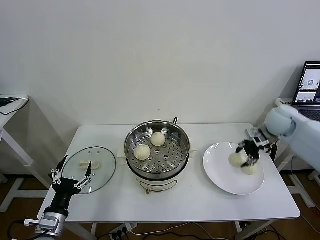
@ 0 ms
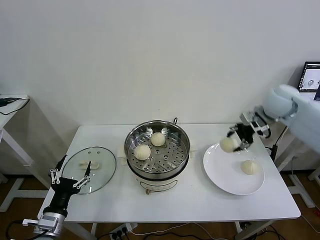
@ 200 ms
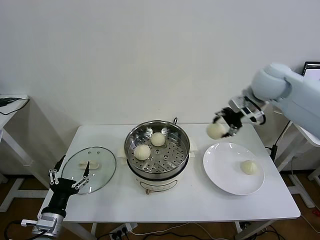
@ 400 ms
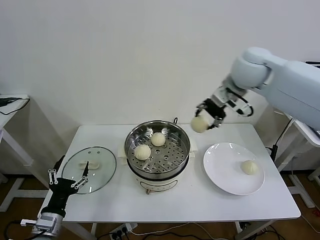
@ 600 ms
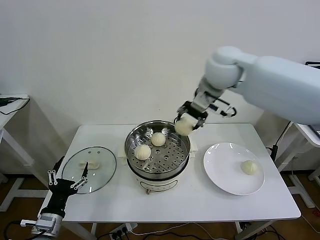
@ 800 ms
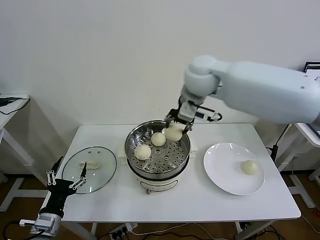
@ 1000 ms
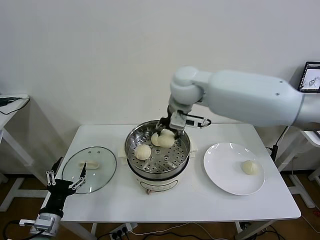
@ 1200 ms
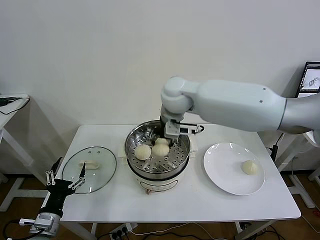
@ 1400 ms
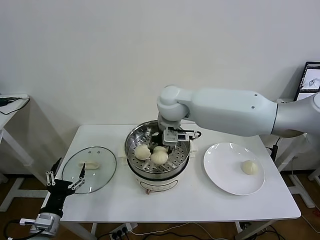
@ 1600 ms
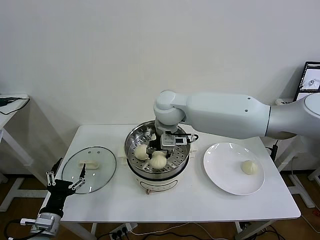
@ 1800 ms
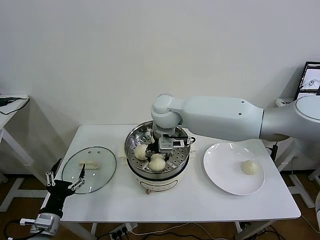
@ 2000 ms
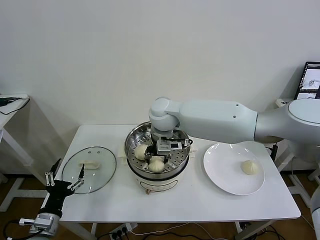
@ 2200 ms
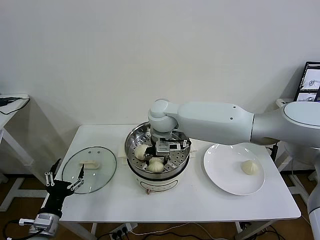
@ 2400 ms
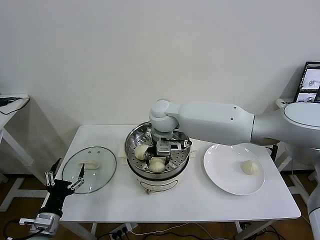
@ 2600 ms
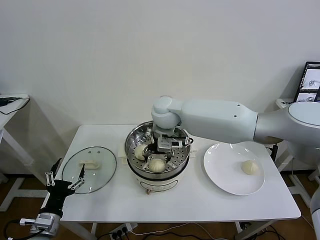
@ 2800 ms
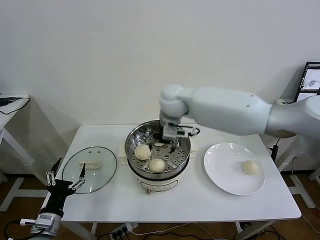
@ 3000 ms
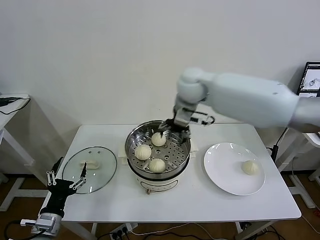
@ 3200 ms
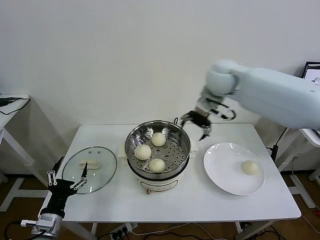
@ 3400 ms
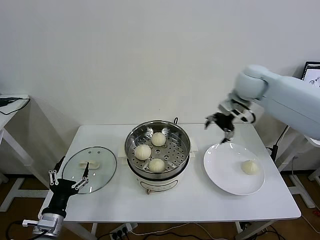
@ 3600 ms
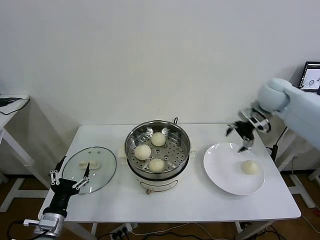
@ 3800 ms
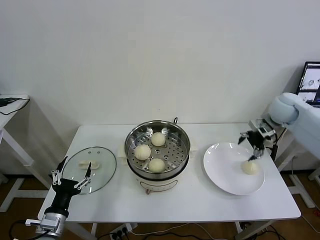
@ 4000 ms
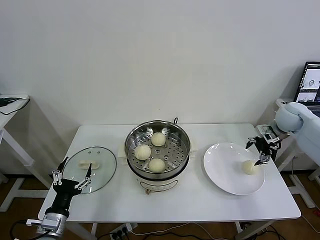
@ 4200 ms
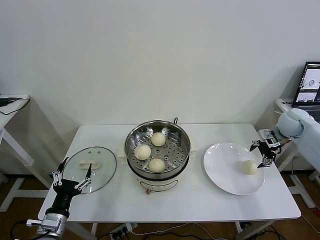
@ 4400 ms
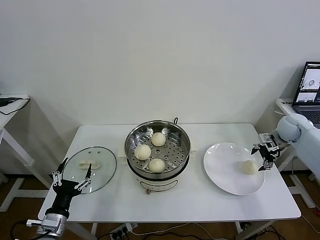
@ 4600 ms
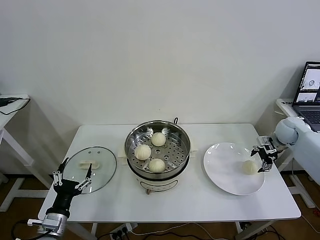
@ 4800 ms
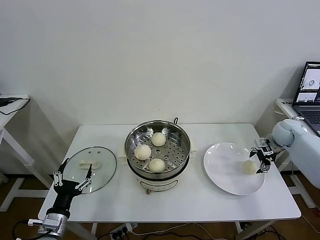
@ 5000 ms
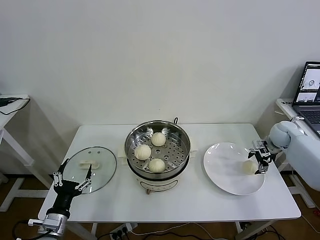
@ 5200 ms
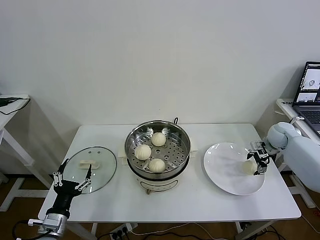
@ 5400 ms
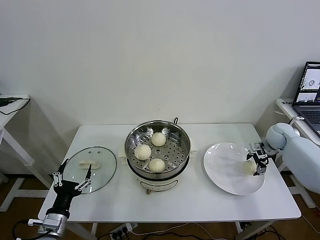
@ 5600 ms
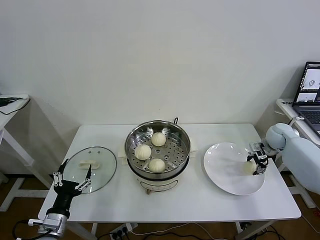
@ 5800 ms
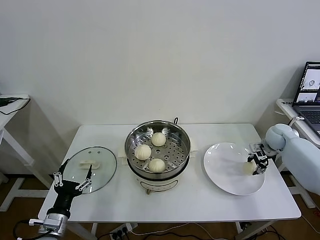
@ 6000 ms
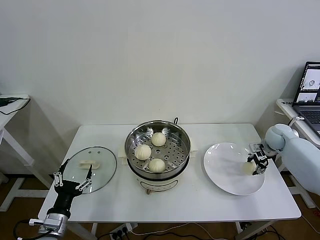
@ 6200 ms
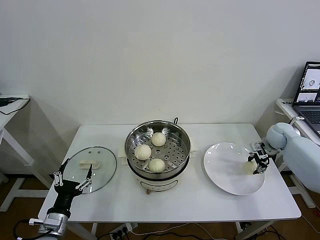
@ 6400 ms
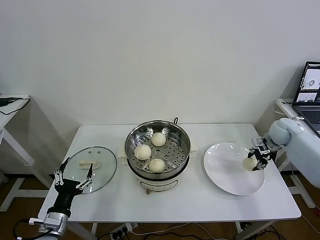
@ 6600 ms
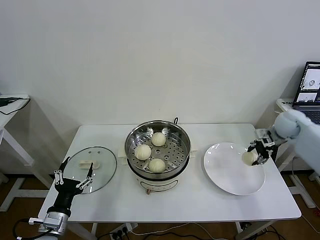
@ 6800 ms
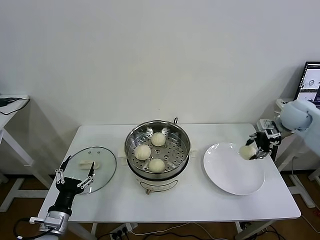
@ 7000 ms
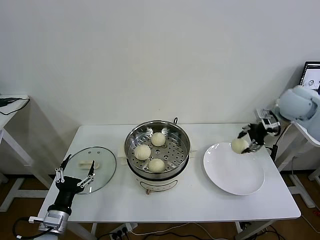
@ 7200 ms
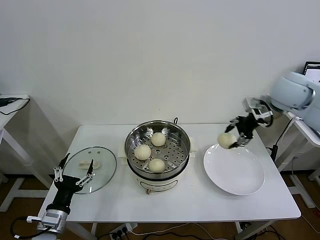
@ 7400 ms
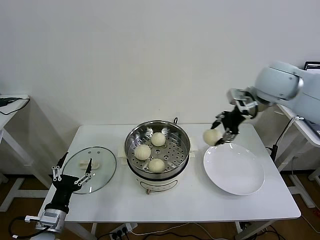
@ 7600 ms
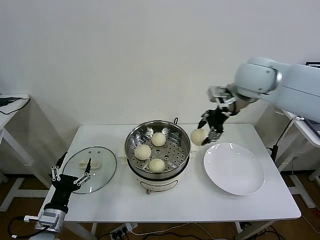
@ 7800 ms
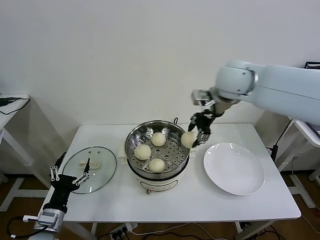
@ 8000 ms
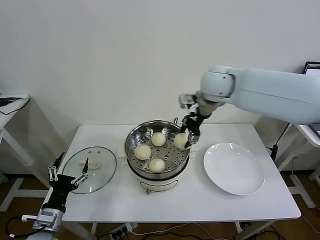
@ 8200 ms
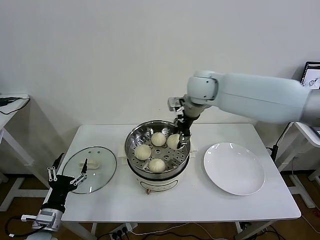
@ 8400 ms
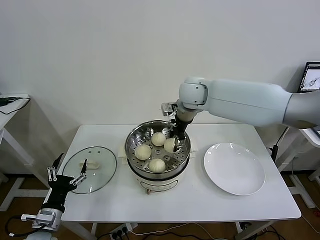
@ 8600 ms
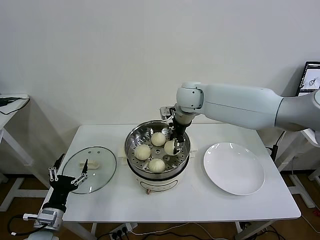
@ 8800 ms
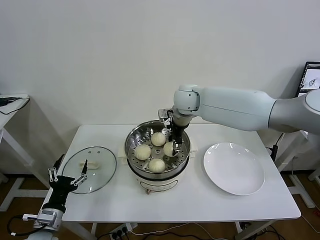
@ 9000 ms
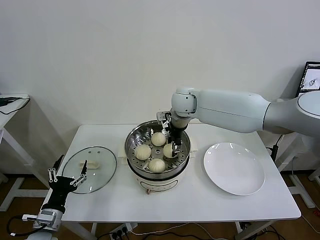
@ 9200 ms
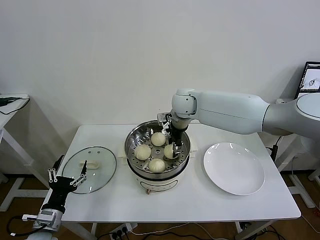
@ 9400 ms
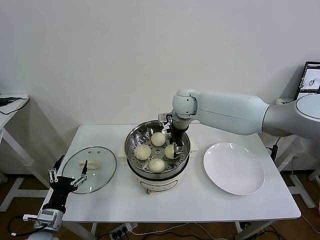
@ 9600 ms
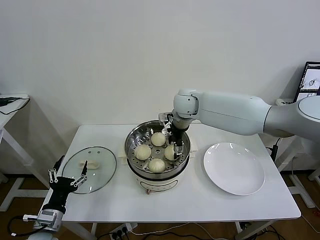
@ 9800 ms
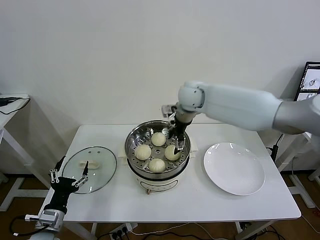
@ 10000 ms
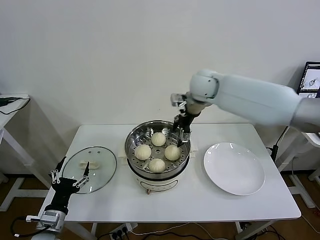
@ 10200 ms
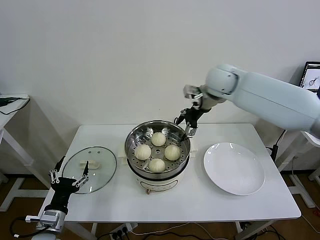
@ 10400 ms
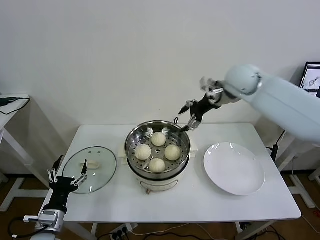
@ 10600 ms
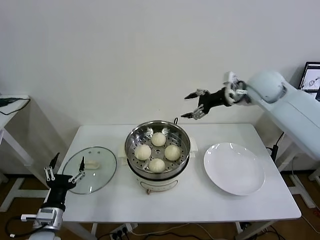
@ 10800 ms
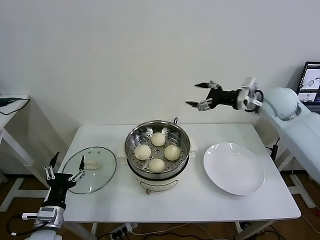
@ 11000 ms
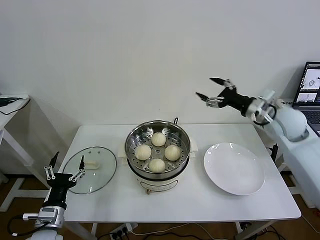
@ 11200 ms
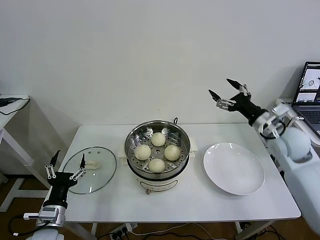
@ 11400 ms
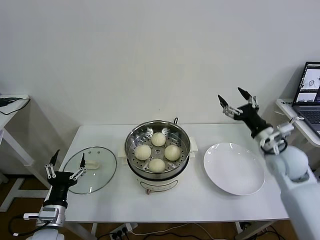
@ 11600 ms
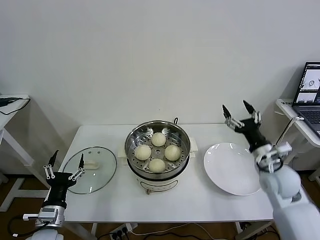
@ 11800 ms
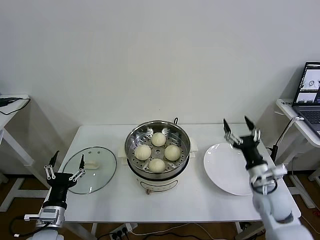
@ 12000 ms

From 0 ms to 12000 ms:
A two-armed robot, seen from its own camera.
Task of the whole recording: take steamed baozi put them in steamer then cover it.
Step, from 0 ms to 2600 ms: Place the baozi on the steamer with right gripper.
Step, from 3000 ms to 5800 ms: Grasp the baozi in the plate with right gripper.
Step, from 6000 ms to 9800 ms: Place the baozi on the steamer with right gripper.
From 0 ms to 1600 ms: The right gripper travels to the left by roughly 35 cm.
From 1600 ms to 3000 ms: The right gripper opens up.
From 3000 ms to 4400 ms: The right gripper moves to the right, approximately 40 cm.
From 4400 ms to 6000 ms: The right gripper travels downward by roughly 10 cm, and closes up.
From 6000 ms to 7600 ms: The right gripper is displaced upward and to the left by about 35 cm.
From 7600 ms to 9000 ms: The right gripper moves to the left and downward, roughly 25 cm.
From 9000 ms to 10400 ms: The right gripper travels to the right and upward by some 10 cm, and opens.
From 10400 ms to 12000 ms: The right gripper travels backward, downward and to the right by some 40 cm.

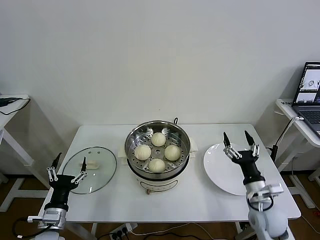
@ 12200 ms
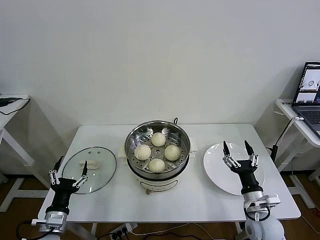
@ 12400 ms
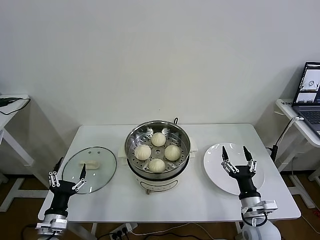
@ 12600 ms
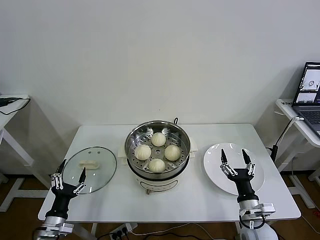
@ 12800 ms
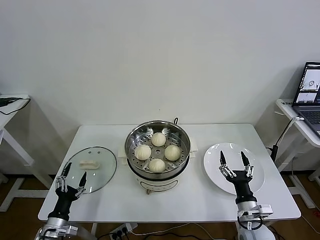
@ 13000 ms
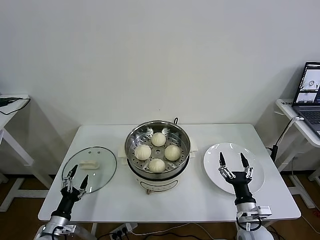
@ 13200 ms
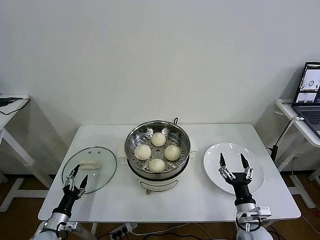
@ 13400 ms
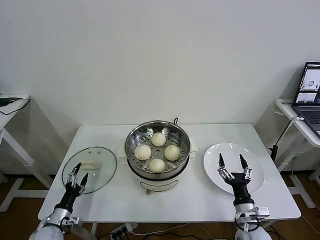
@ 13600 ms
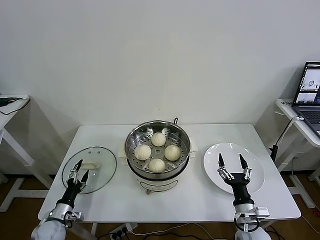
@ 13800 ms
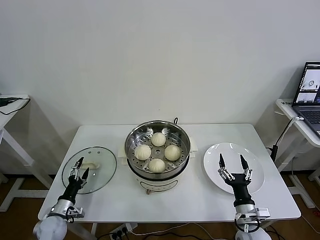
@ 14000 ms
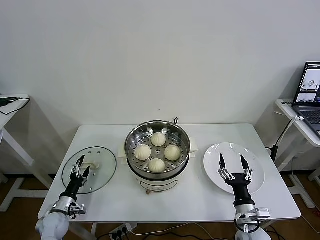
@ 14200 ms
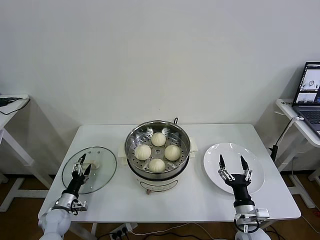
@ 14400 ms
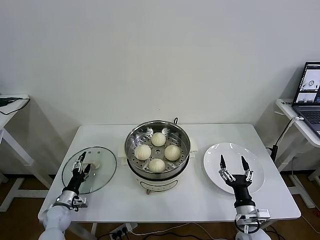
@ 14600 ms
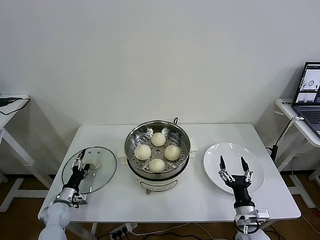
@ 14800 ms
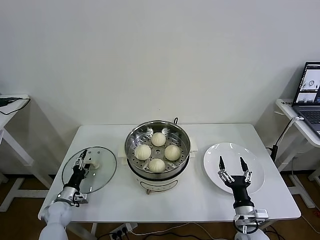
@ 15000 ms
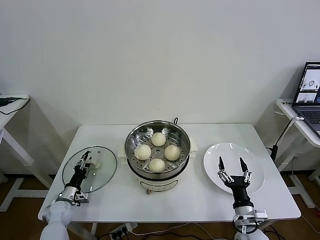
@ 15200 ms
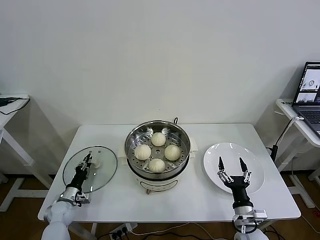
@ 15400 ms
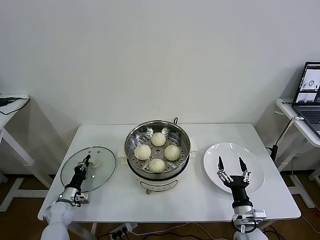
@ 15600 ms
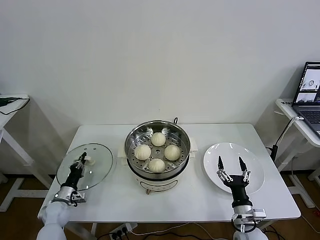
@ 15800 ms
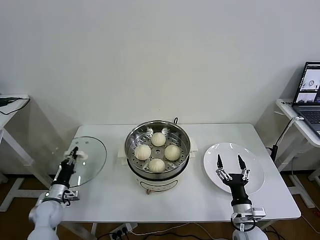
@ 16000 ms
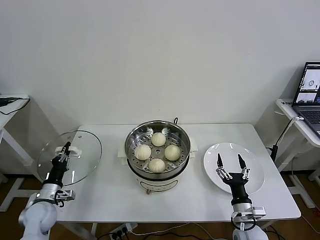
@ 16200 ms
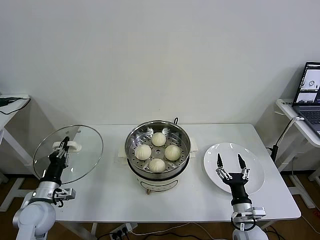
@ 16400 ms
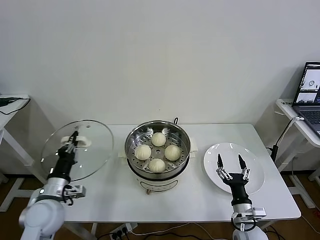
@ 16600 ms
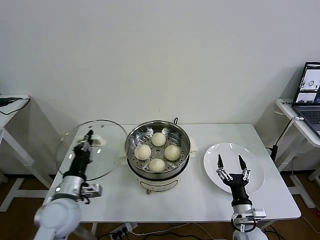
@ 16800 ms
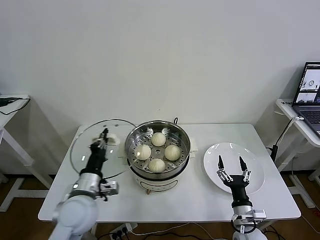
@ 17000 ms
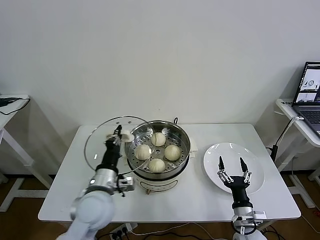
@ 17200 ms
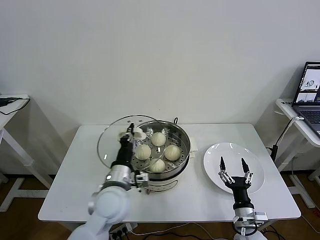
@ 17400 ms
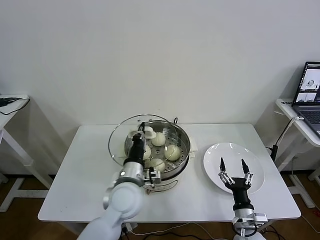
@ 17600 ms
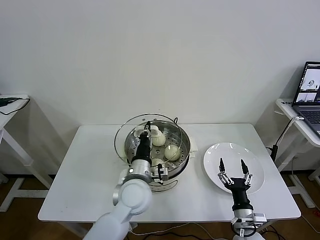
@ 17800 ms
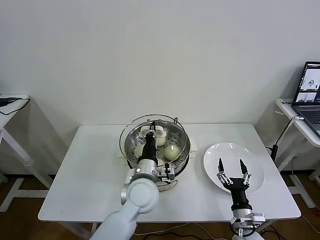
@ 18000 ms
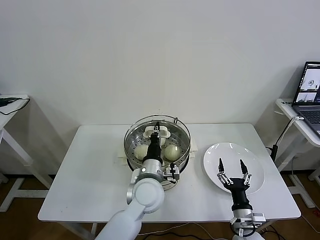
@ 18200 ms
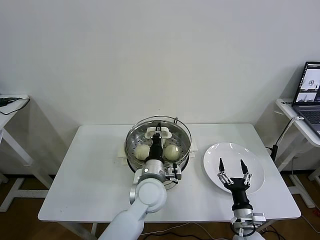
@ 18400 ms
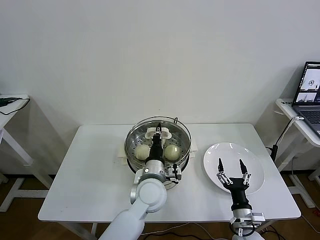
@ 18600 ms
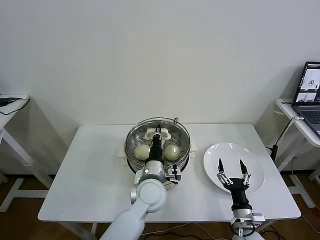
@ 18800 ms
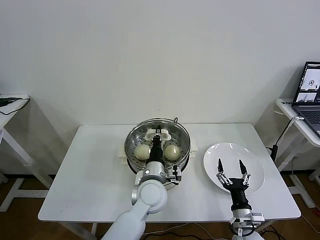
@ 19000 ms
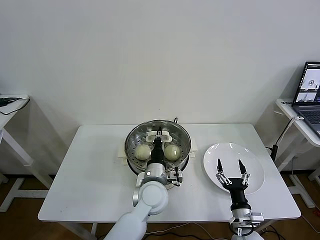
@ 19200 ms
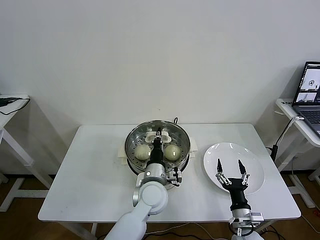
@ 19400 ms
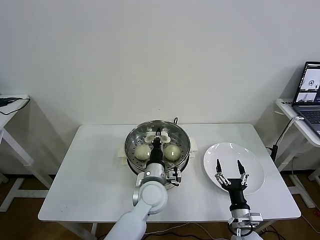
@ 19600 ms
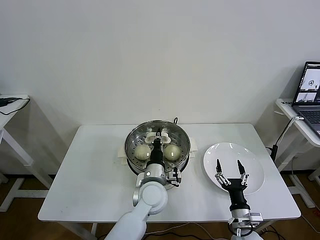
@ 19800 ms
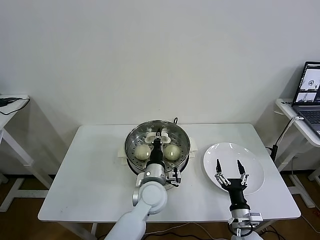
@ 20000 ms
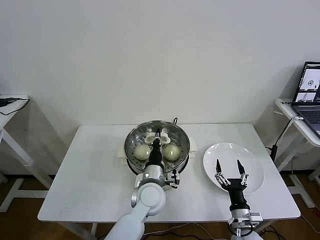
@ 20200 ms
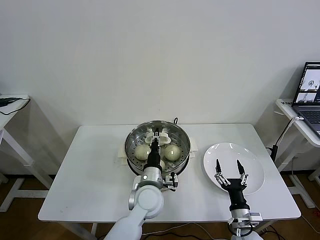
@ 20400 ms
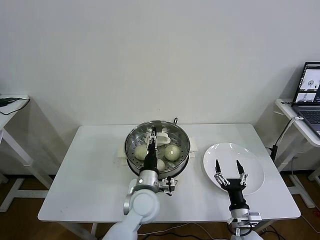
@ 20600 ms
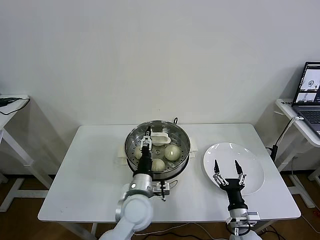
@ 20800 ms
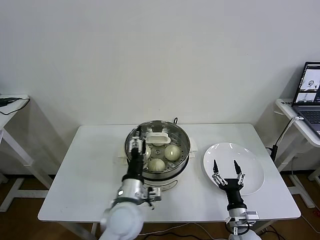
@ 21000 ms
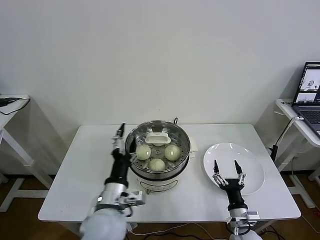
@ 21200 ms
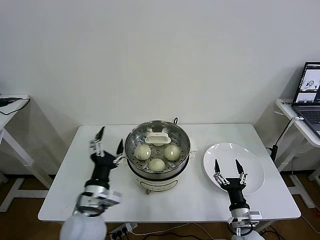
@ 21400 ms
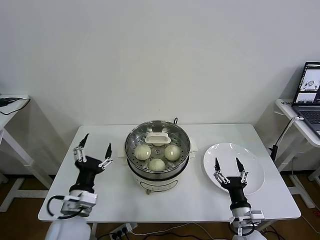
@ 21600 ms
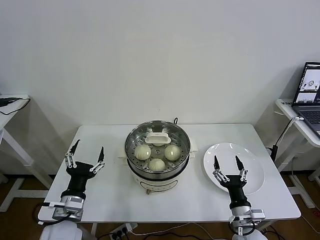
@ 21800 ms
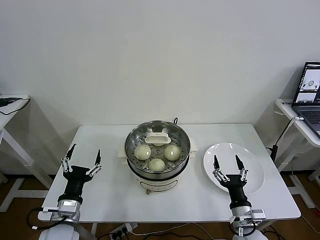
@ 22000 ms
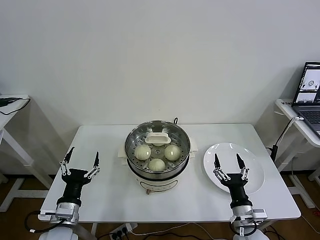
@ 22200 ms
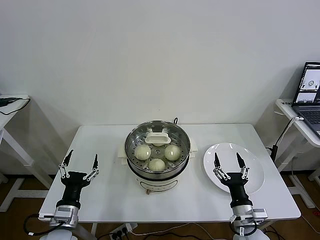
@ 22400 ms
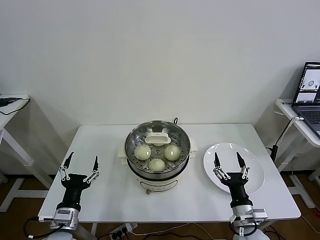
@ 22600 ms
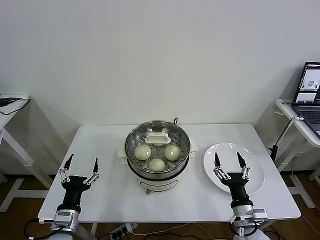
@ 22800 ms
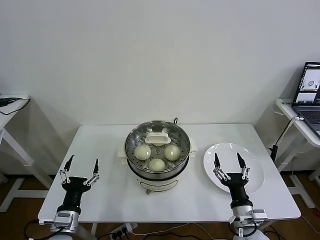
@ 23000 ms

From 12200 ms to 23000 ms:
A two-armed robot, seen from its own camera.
Task of the whole recording: take steamed baozi put them in steamer then cover it.
Step, from 12200 ms to 15600 ms: Grasp the pot lid with left gripper.
Step, from 15800 ms to 21000 ms: Place the pot lid on the steamer with left gripper.
From 12200 ms to 13800 ms: The left gripper is displaced downward, to the left and forward by some 15 cm, while the right gripper travels downward by about 5 cm.
From 13800 ms to 15200 ms: The left gripper travels forward by roughly 10 cm, and closes.
From 15200 ms to 16800 ms: The left gripper heads upward and to the right, covering about 25 cm, and closes.
From 16800 ms to 18400 ms: The left gripper moves to the right, some 25 cm.
From 18400 ms to 20000 ms: The grippers stay close to where they were, moving slightly.
From 20000 ms to 21400 ms: The left gripper is displaced to the left, backward and upward by roughly 20 cm, and opens up.
From 21400 ms to 23000 ms: The left gripper moves to the left and downward, roughly 15 cm. Meanwhile the right gripper moves upward, approximately 5 cm.
